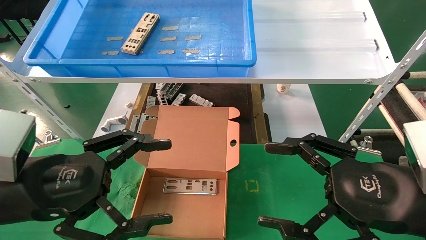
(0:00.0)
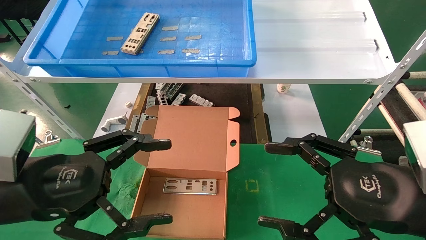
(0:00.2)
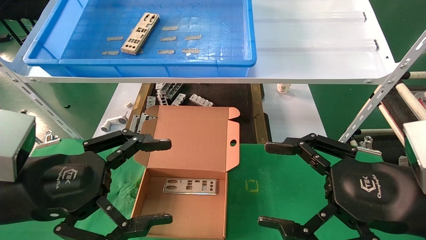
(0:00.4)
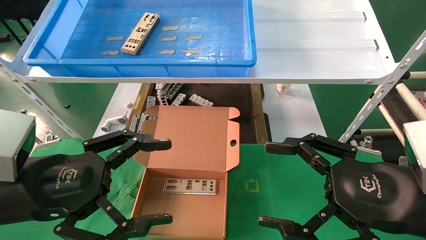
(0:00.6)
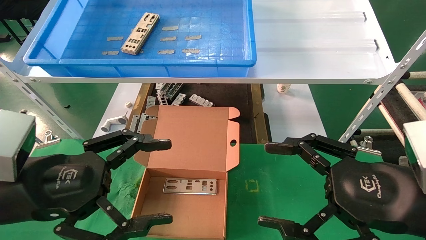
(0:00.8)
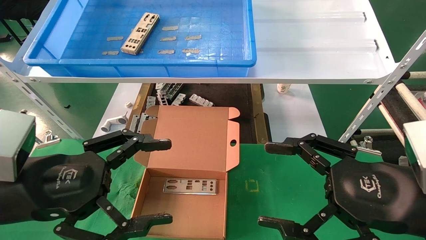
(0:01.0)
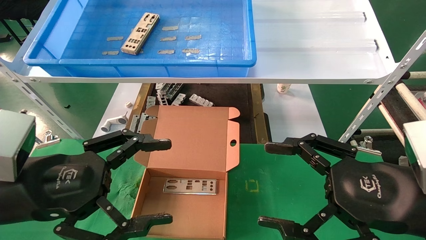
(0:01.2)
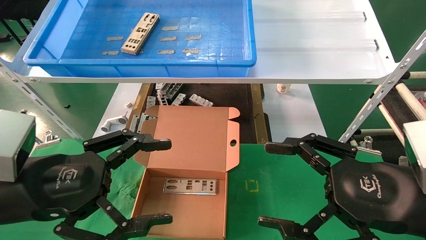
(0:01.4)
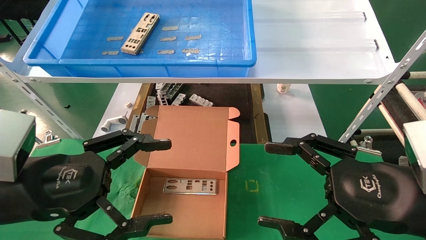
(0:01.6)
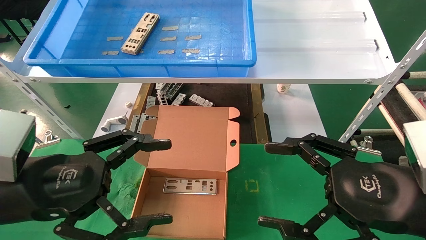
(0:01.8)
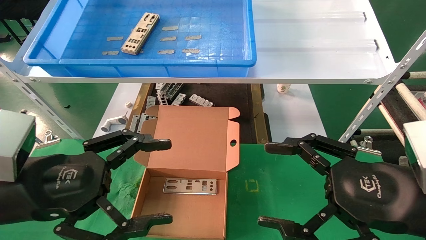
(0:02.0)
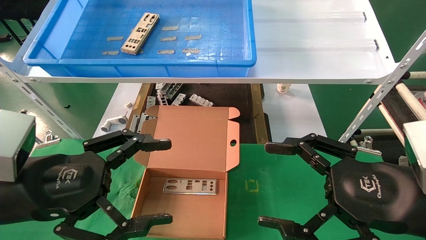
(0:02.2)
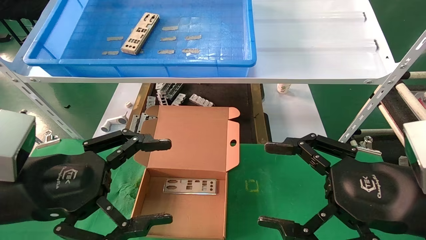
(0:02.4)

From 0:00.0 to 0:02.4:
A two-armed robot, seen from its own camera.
Task of the whole recording: pick up the parts on the tray and put them in the cardboard box.
From 0:00.0 to 0:02.4: Both grippers stay about where they are.
